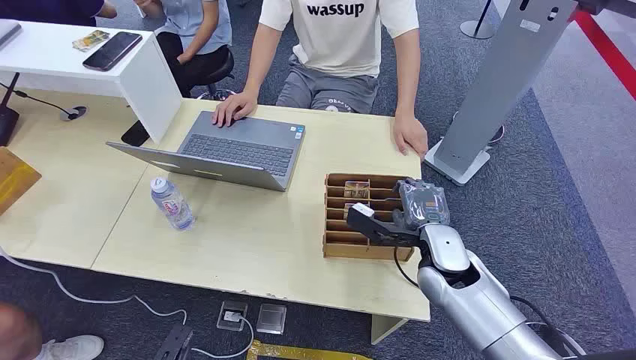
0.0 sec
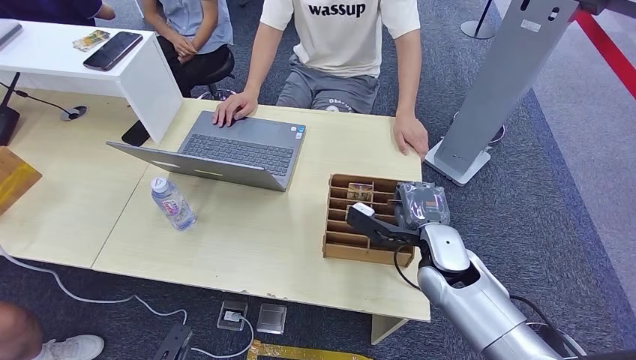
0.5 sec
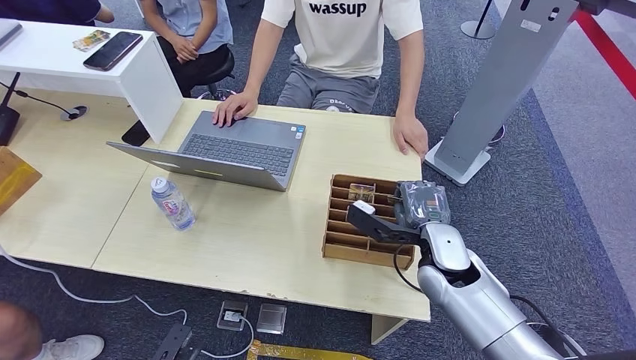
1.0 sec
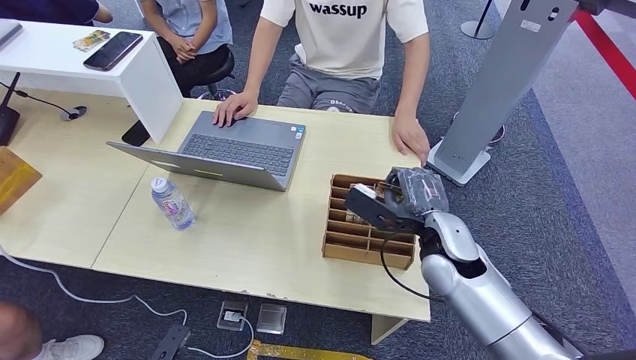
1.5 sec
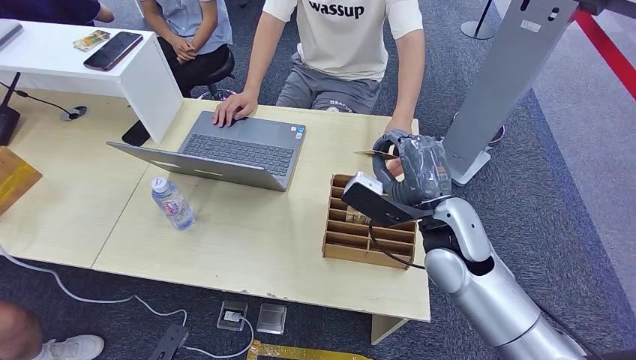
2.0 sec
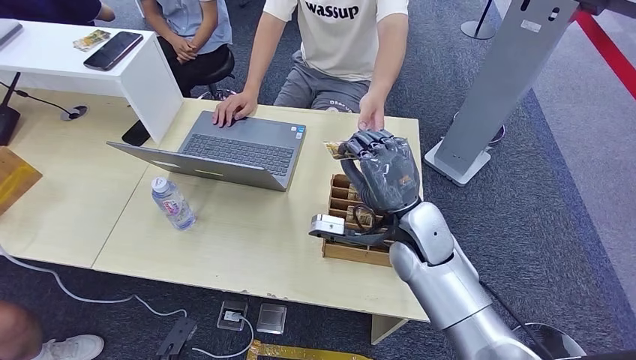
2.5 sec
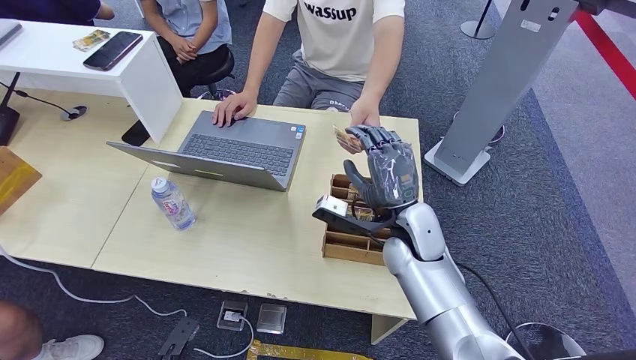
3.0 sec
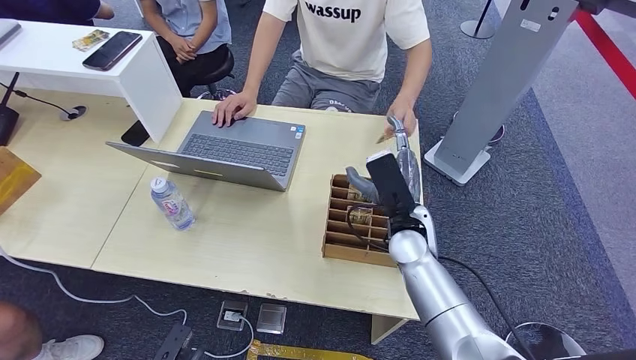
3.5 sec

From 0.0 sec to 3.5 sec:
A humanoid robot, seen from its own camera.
Step, from 0.0 sec to 1.5 sec: Pick up the room card from the card holder.
Step, from 2.0 sec to 3.5 sec: Hand the room card to the target.
From 2.0 sec to 3.5 sec: The right hand is displaced downward by some 5 cm.

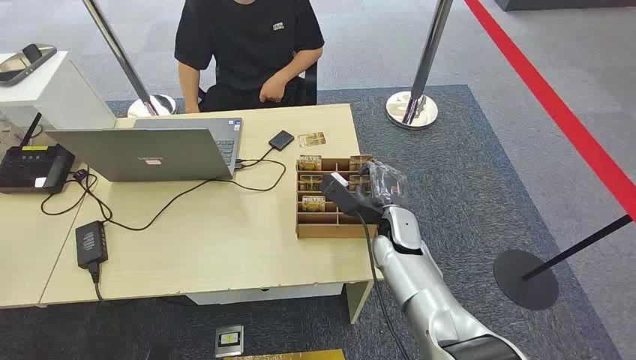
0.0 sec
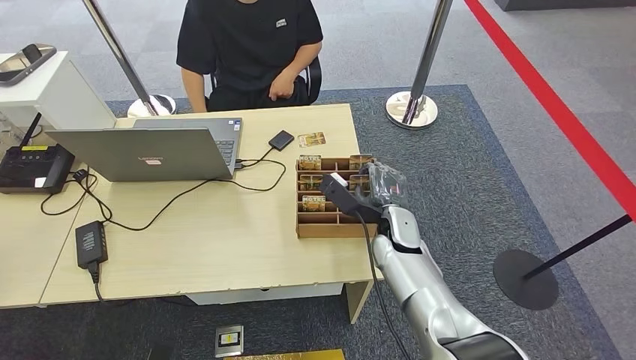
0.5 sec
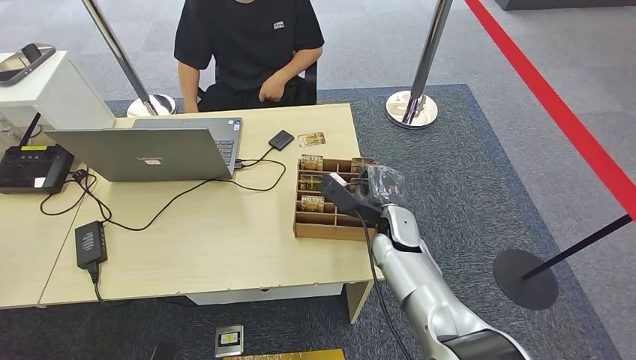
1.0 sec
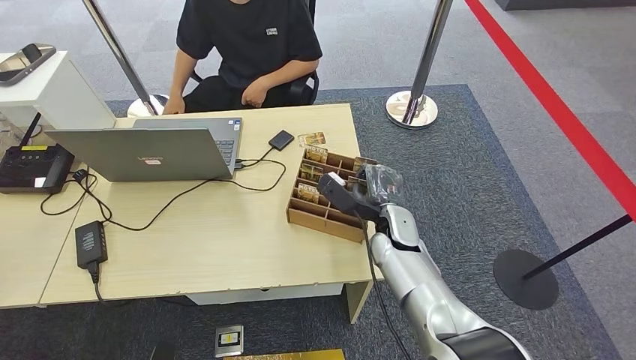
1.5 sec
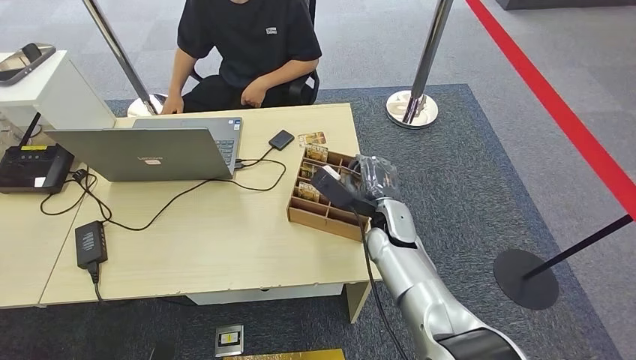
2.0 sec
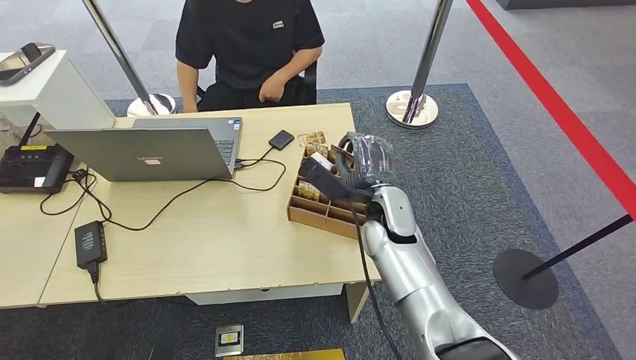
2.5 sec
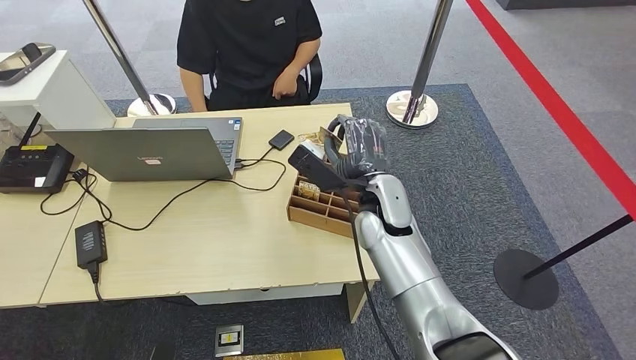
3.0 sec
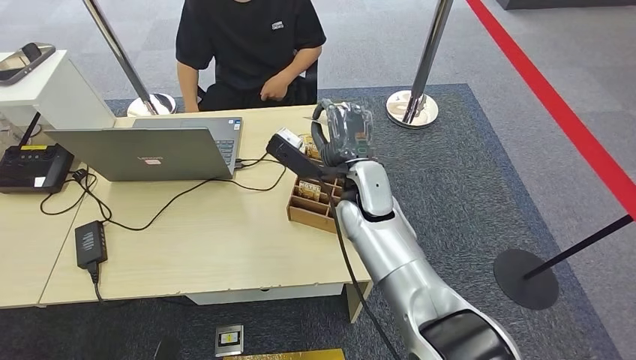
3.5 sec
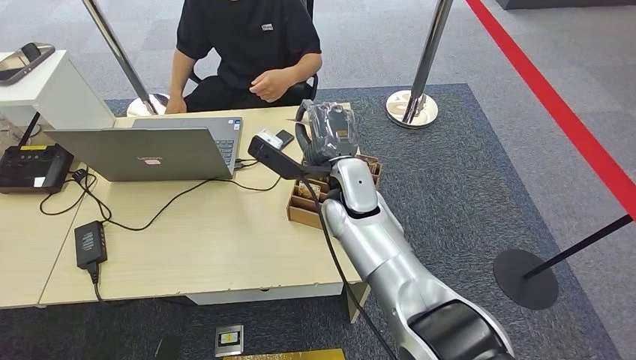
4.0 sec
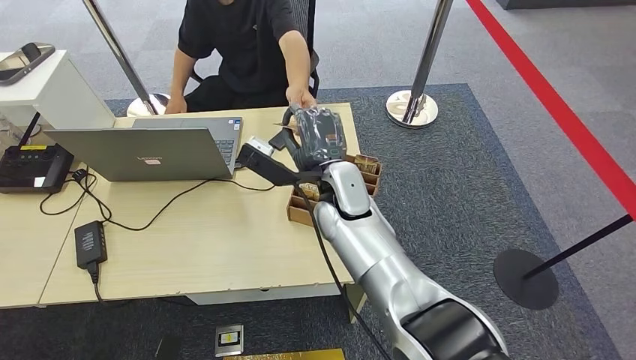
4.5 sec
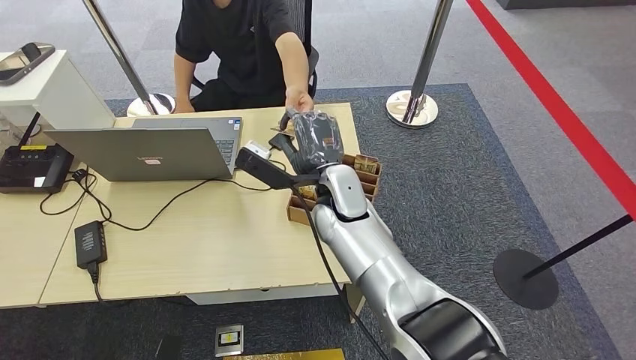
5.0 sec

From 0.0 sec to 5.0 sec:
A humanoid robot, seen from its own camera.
Step, from 0.0 sec to 3.5 sec: Pick up the room card from the card holder.
Step, from 4.0 sec to 5.0 sec: Hand the room card to the target.
From 2.5 sec to 5.0 sec: The right hand heads to the left, covering approximately 10 cm.

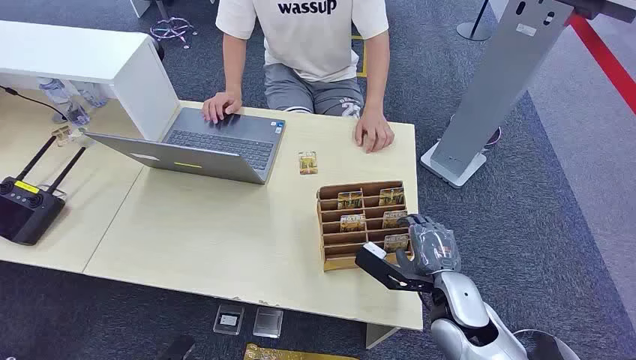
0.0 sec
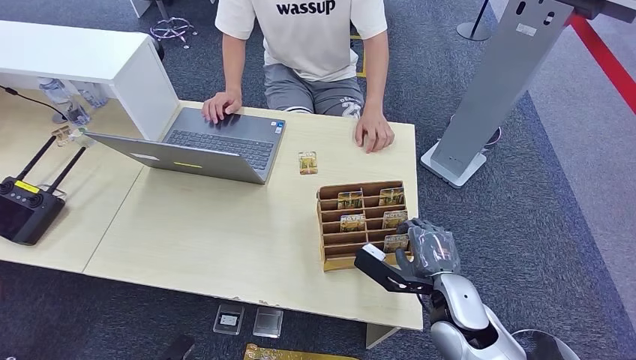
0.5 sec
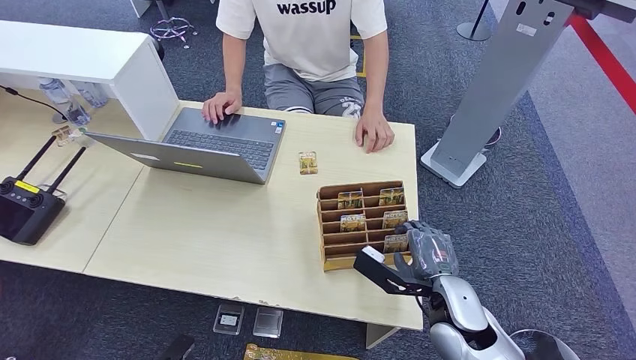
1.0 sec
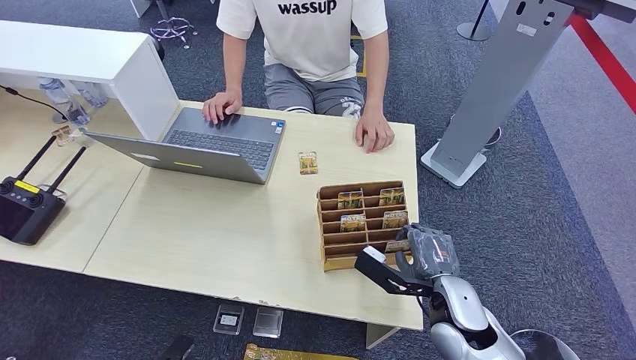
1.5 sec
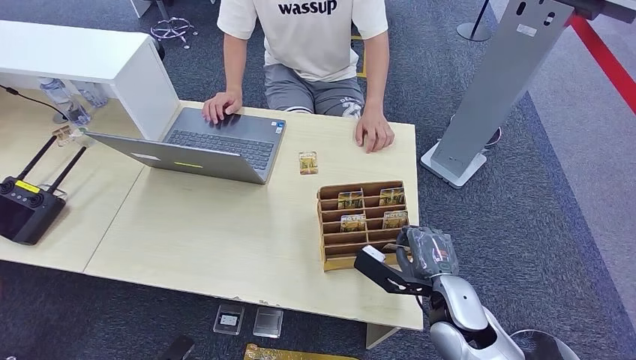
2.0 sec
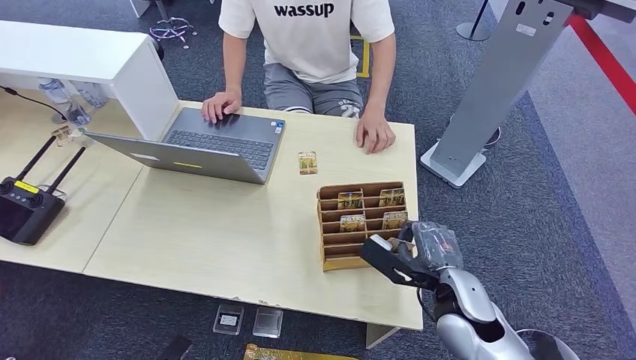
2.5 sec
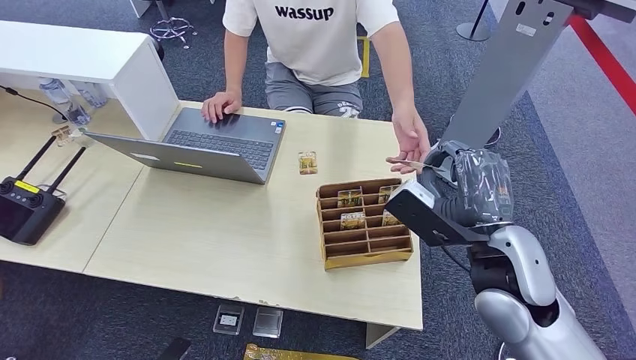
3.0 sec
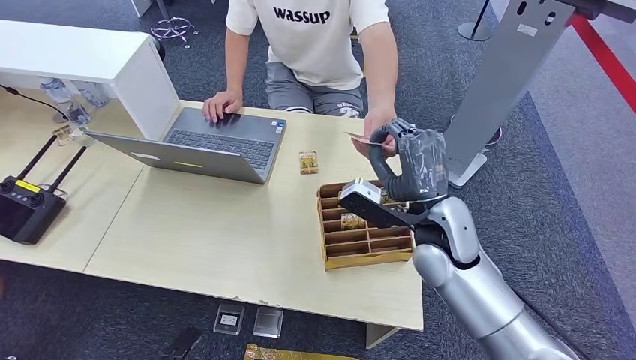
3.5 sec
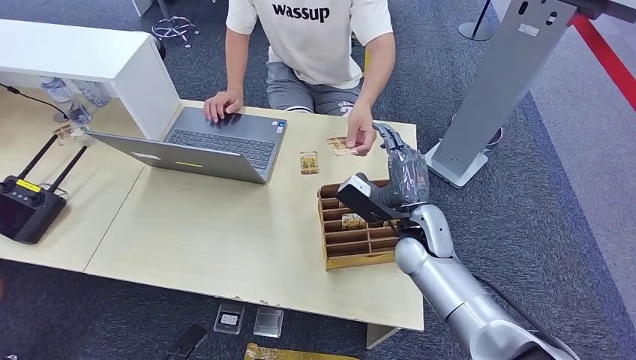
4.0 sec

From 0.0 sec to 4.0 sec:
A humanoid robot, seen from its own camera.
Step, from 0.0 sec to 2.5 sec: Pick up the room card from the card holder.
Step, from 3.0 sec to 4.0 sec: Hand the room card to the target.
From 2.0 sec to 4.0 sec: The right hand travels forward and to the left by about 10 cm, and moves approximately 15 cm upward and comes back.
